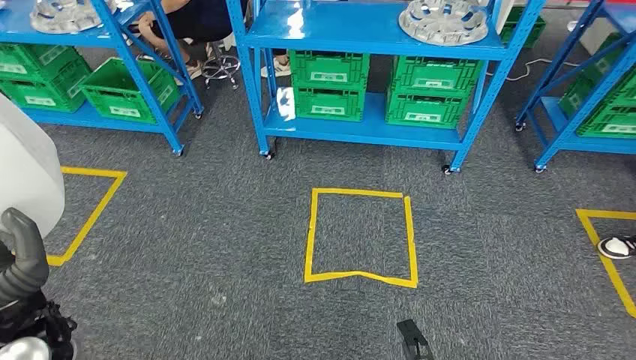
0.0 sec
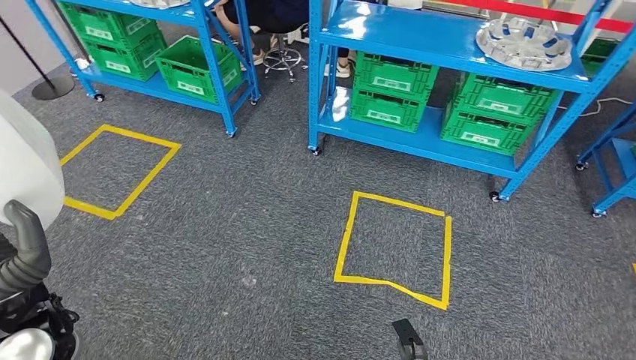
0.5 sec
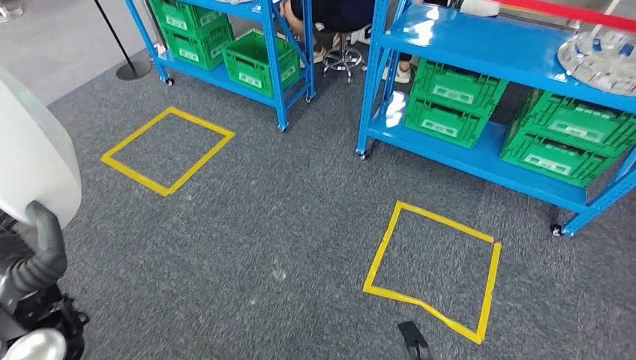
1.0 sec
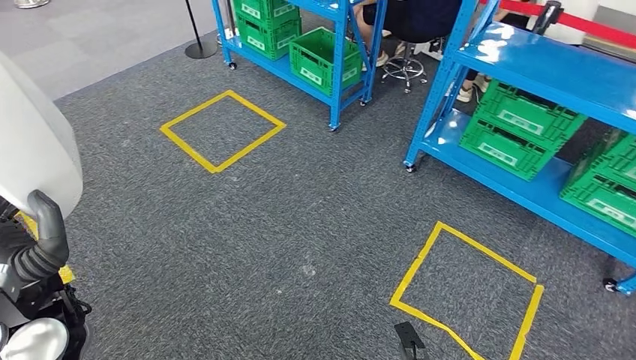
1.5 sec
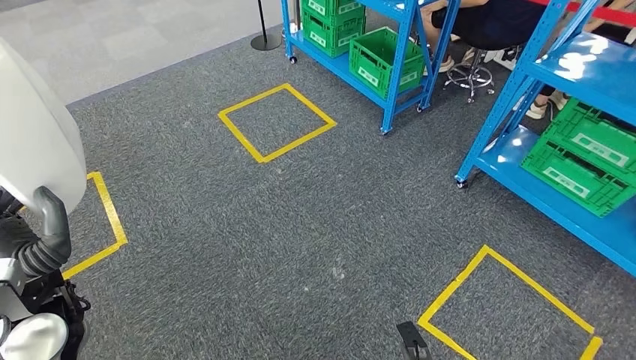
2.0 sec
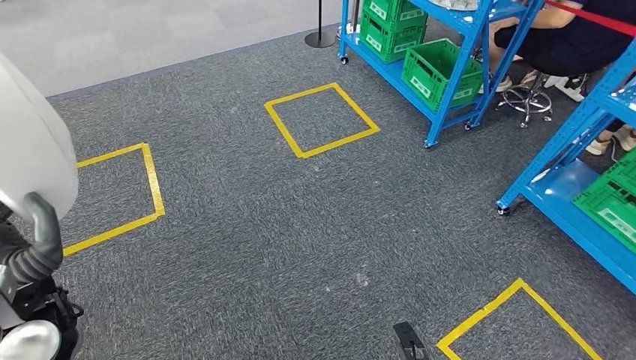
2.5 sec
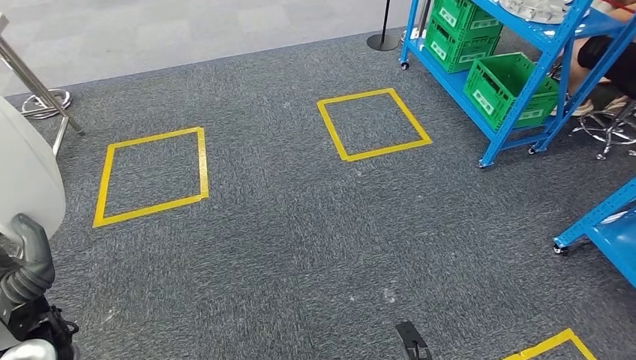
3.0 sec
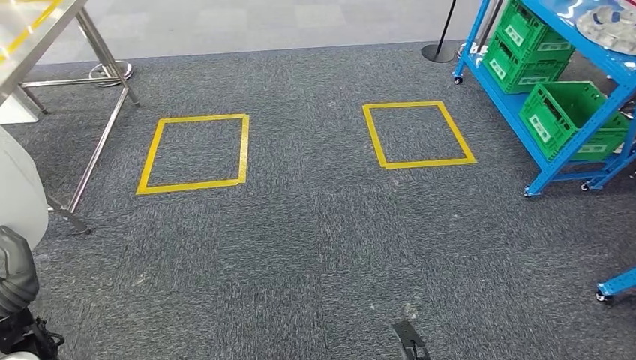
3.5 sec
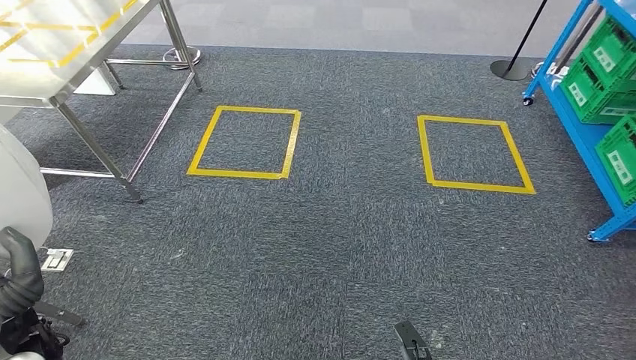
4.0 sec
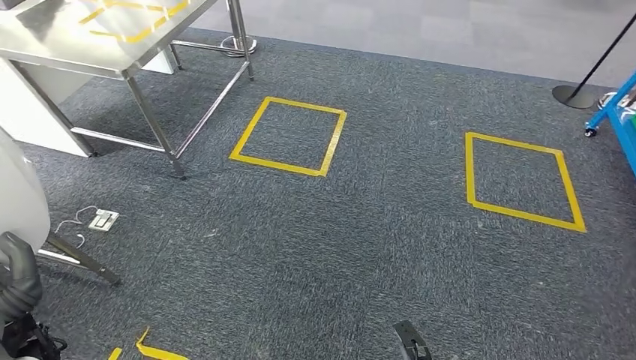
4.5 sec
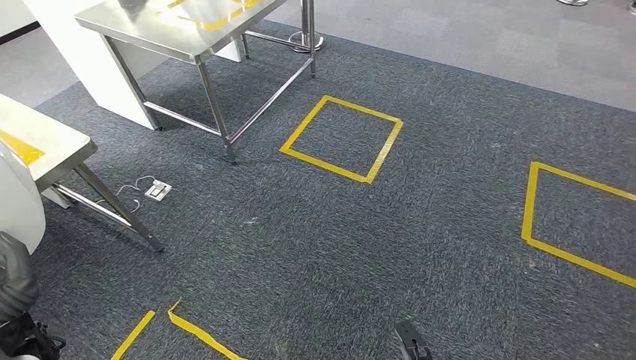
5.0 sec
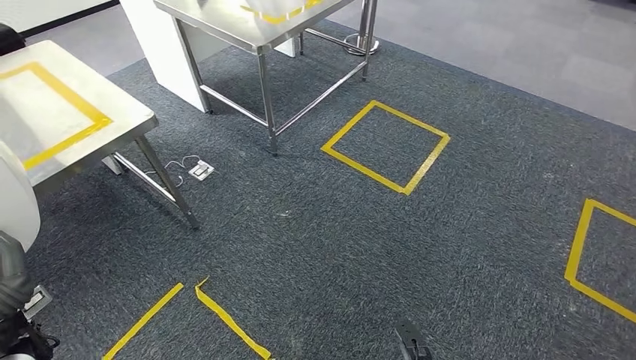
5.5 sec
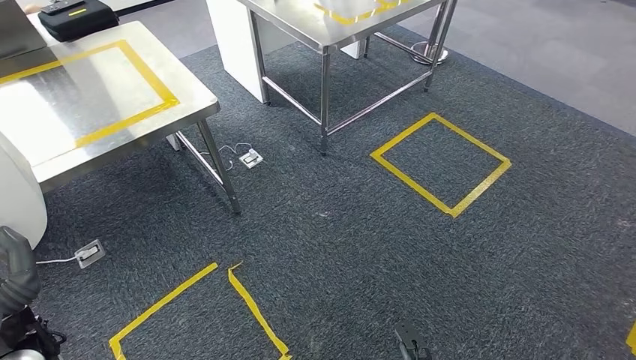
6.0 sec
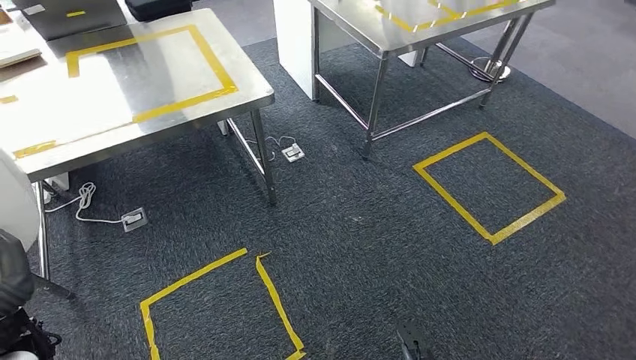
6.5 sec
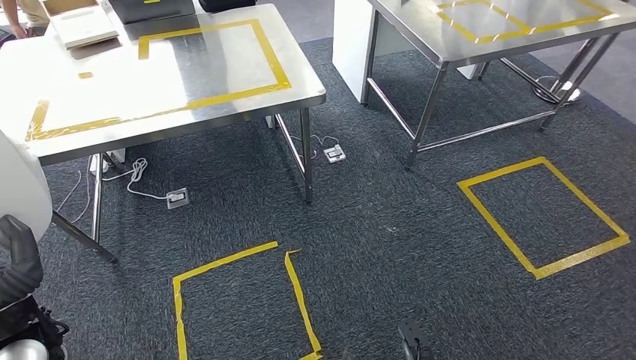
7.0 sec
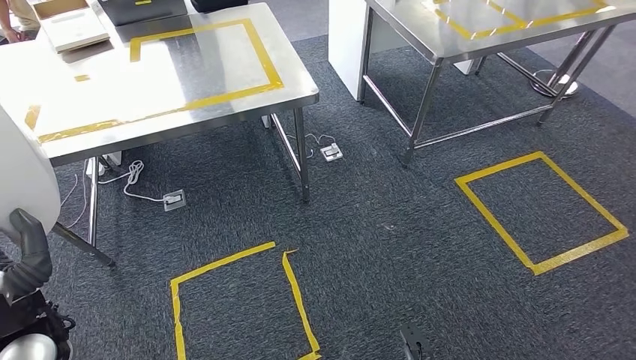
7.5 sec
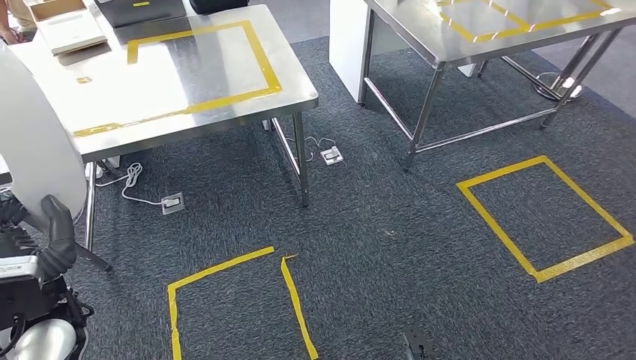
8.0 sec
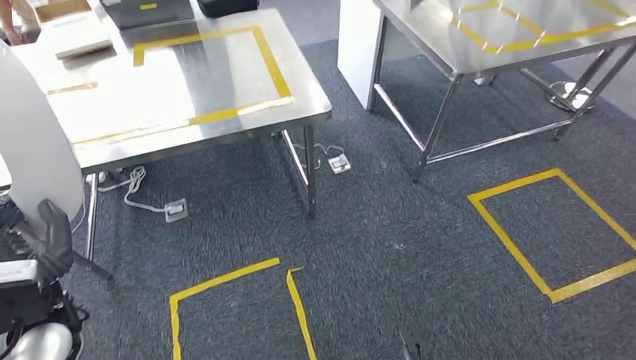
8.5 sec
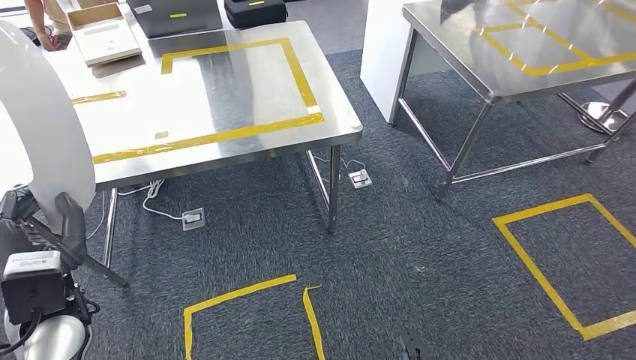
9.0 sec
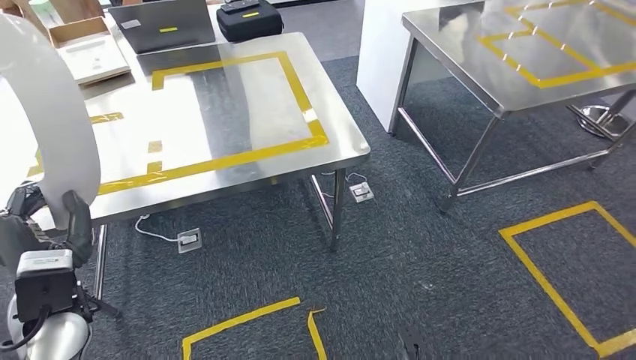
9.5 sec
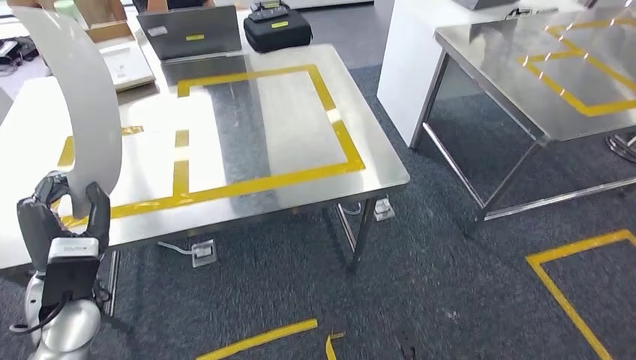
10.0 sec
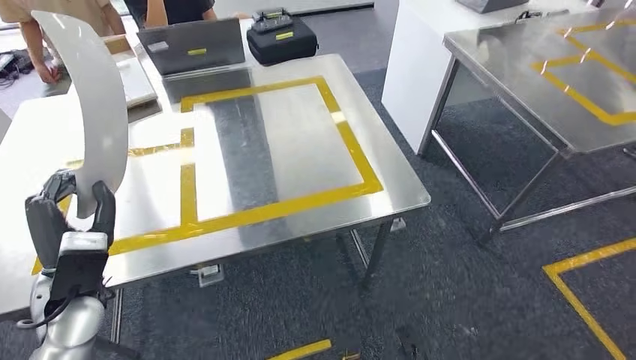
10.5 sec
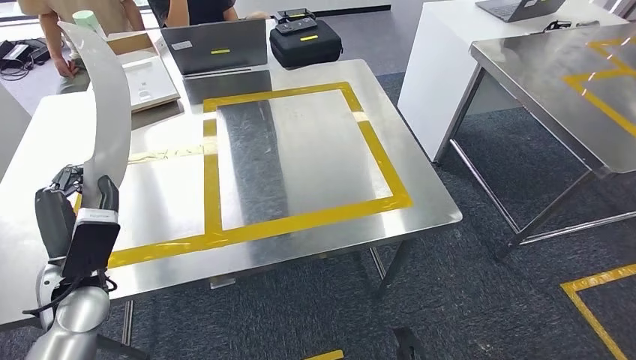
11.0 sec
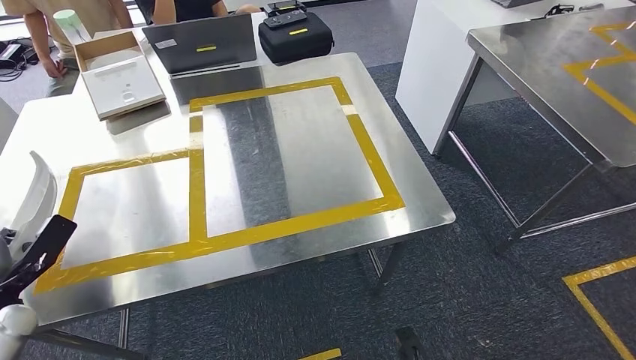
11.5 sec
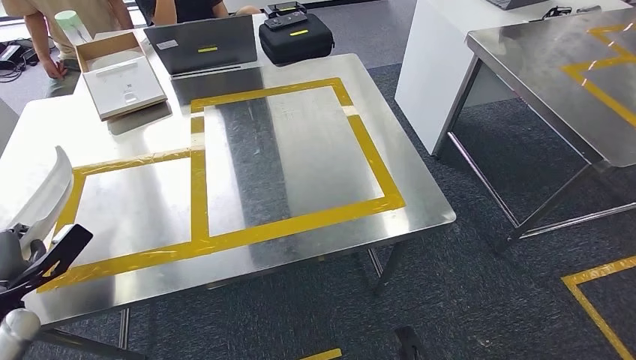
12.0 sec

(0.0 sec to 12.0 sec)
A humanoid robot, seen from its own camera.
Step, 0.0 sec - 0.5 sec: Pick up the small parts from the shelf.
Step, 1.5 sec - 11.0 sec: Move the small parts to the workbench.

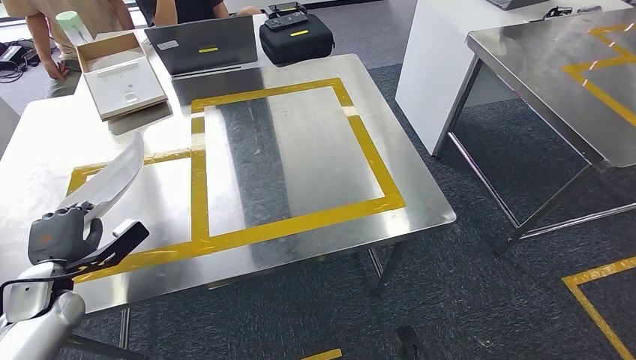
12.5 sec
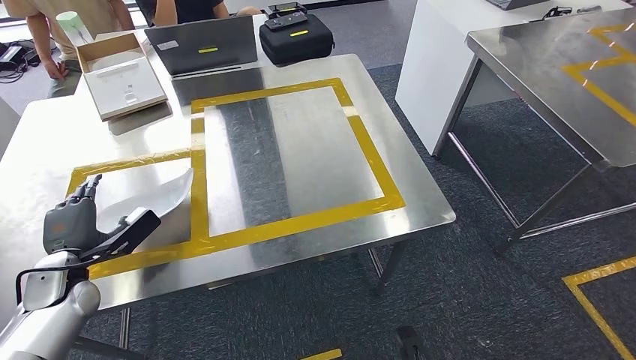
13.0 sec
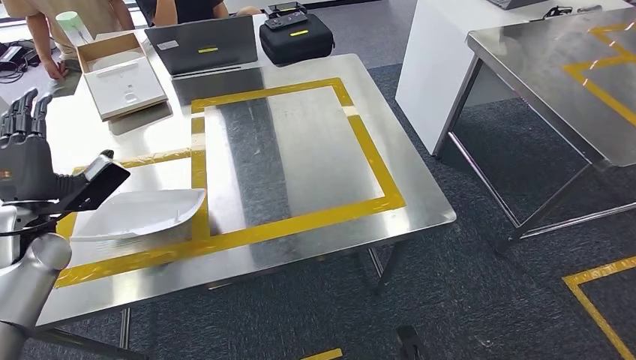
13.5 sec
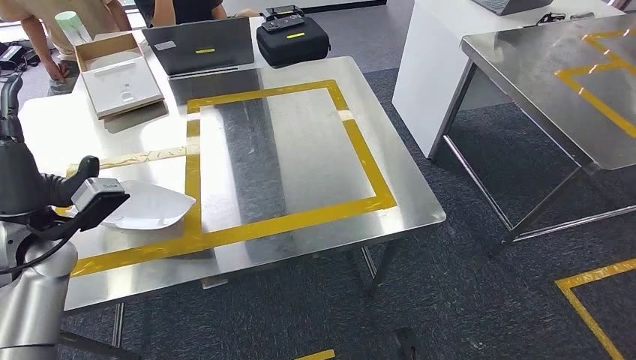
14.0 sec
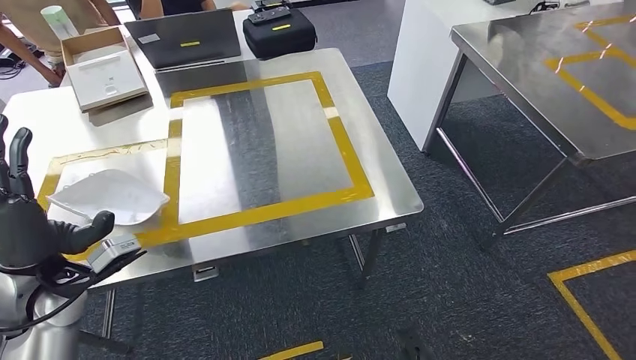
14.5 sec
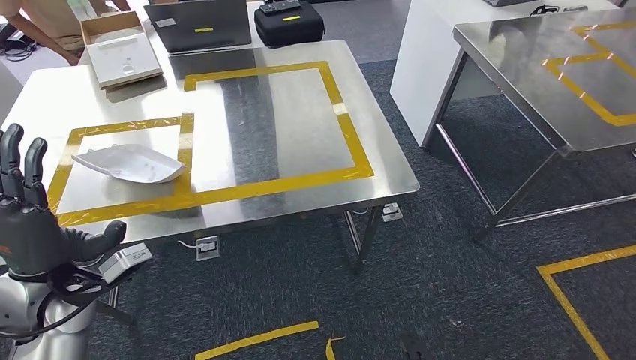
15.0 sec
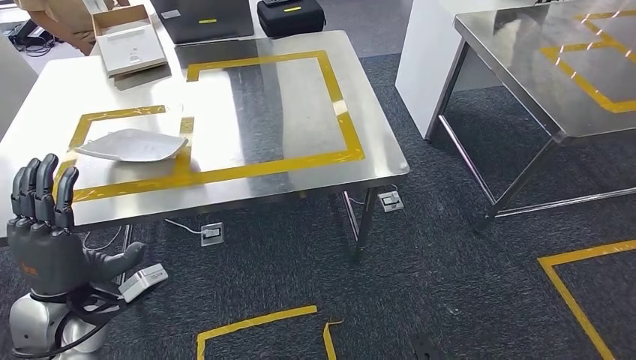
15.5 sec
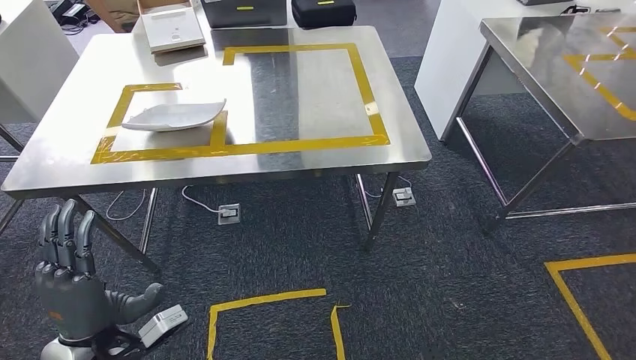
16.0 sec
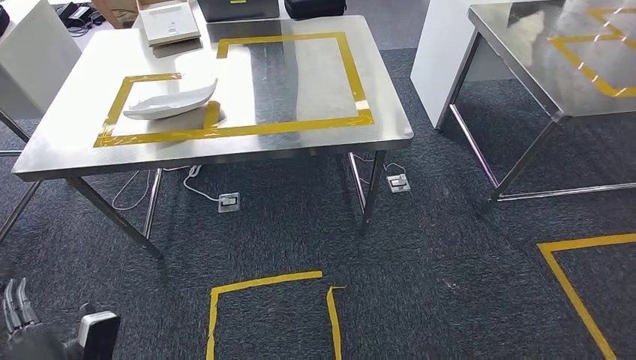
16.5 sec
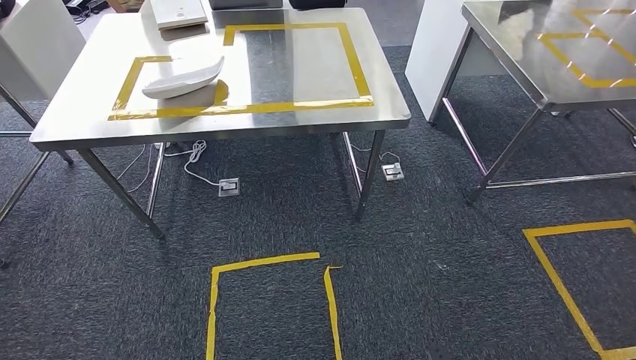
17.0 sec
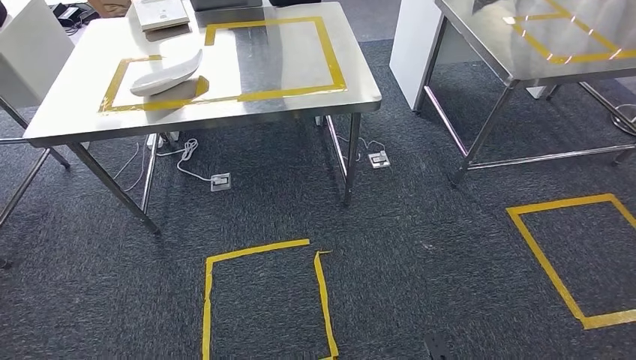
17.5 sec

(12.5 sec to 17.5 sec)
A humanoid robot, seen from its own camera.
Step, 12.5 sec - 14.5 sec: Insert the small parts into the corresponding holes on the workbench.
Step, 15.0 sec - 17.5 sec: Move to the initial position at the workbench.
